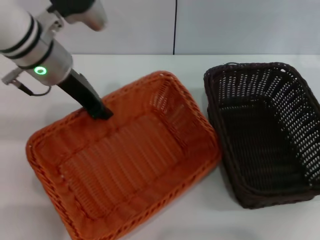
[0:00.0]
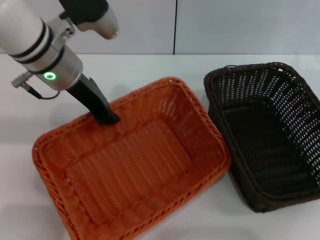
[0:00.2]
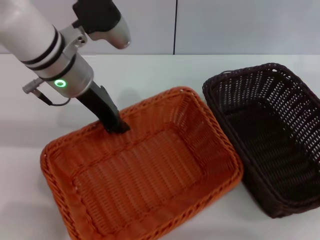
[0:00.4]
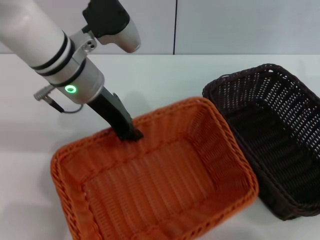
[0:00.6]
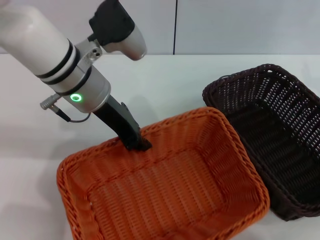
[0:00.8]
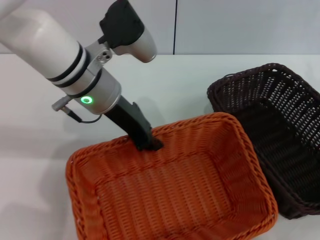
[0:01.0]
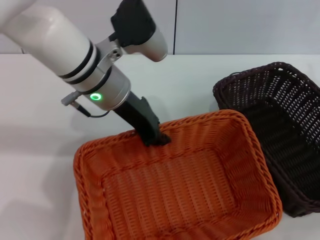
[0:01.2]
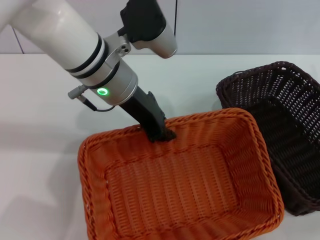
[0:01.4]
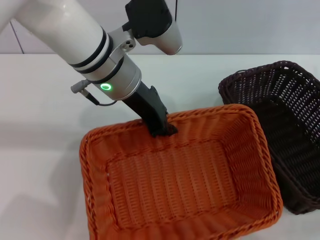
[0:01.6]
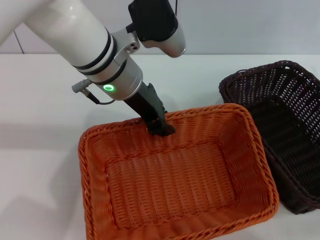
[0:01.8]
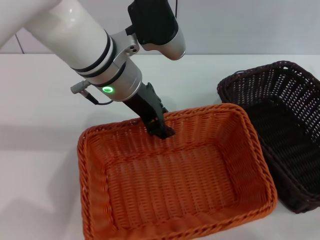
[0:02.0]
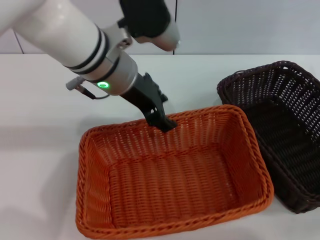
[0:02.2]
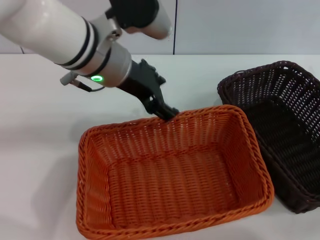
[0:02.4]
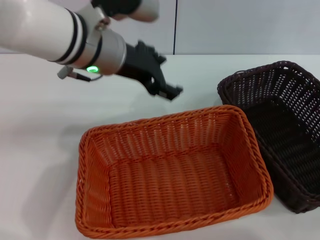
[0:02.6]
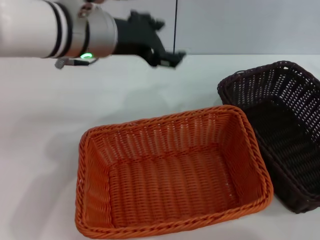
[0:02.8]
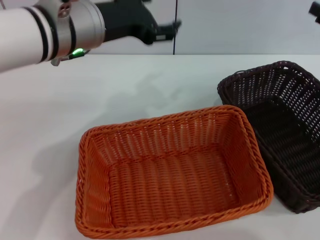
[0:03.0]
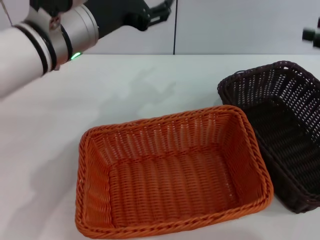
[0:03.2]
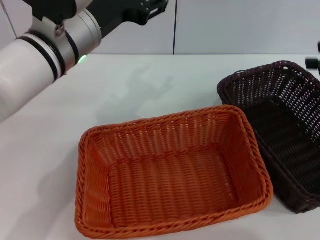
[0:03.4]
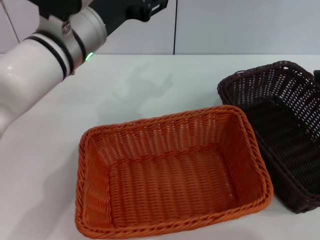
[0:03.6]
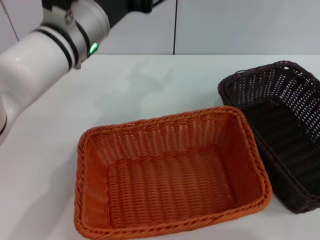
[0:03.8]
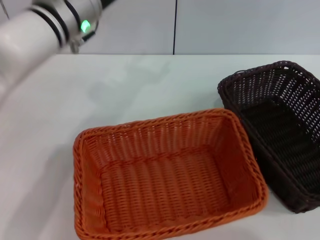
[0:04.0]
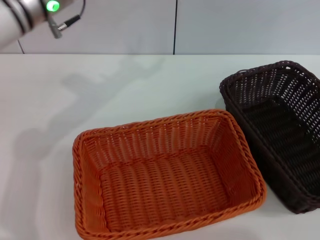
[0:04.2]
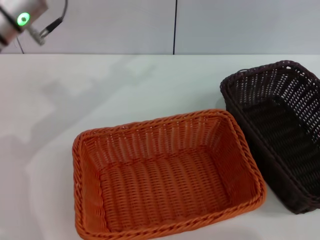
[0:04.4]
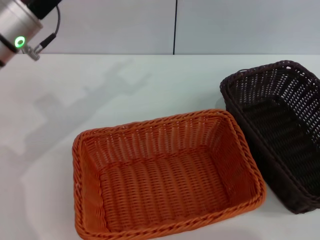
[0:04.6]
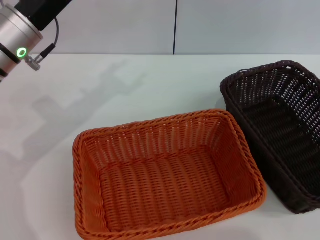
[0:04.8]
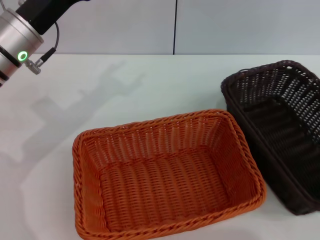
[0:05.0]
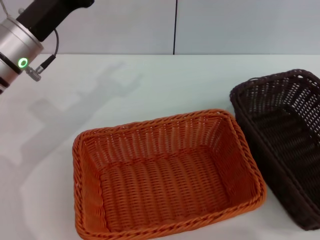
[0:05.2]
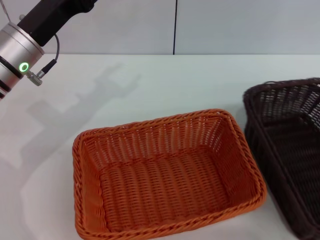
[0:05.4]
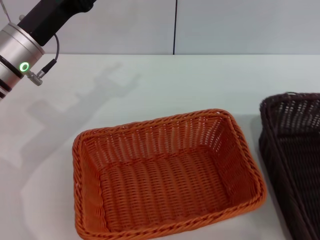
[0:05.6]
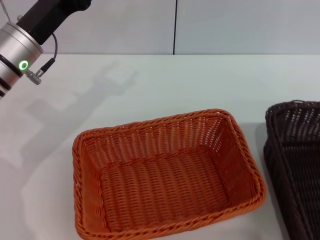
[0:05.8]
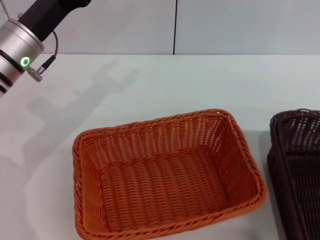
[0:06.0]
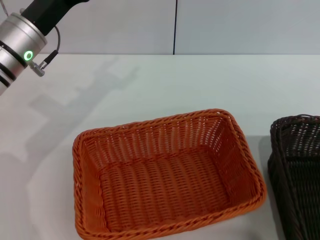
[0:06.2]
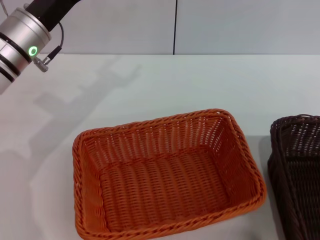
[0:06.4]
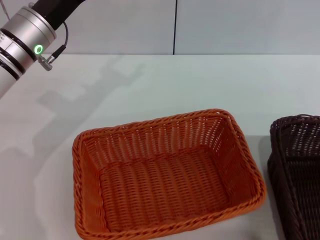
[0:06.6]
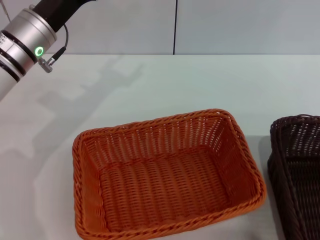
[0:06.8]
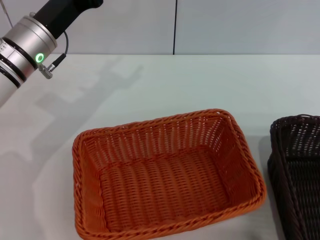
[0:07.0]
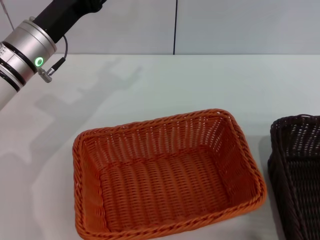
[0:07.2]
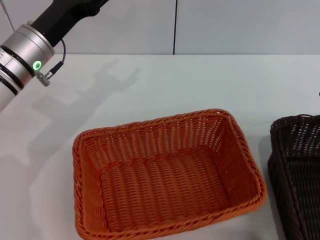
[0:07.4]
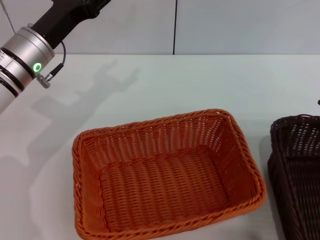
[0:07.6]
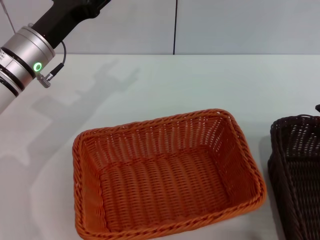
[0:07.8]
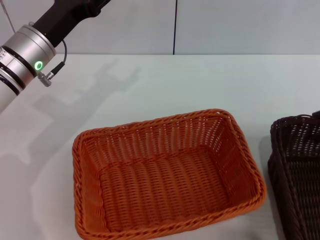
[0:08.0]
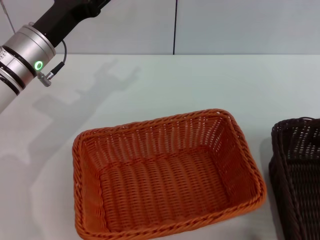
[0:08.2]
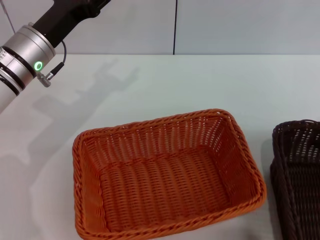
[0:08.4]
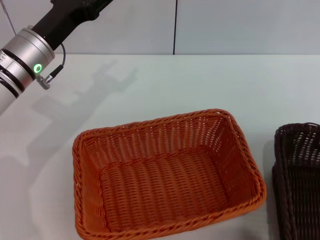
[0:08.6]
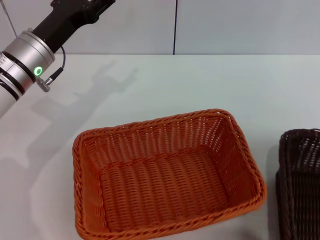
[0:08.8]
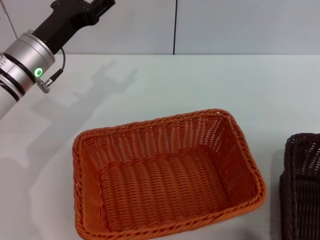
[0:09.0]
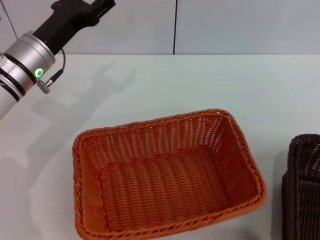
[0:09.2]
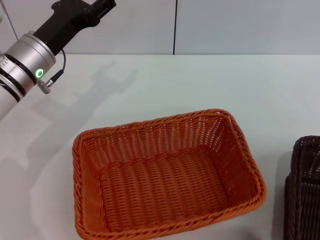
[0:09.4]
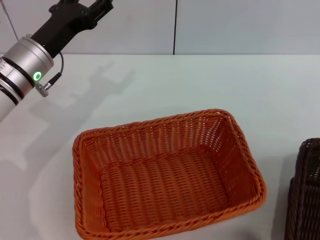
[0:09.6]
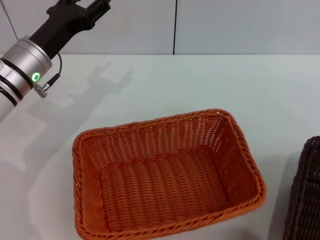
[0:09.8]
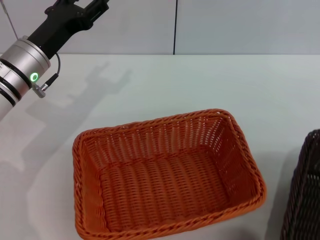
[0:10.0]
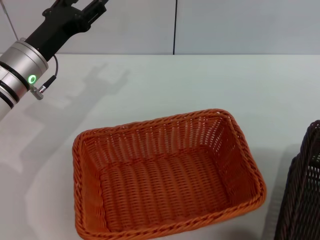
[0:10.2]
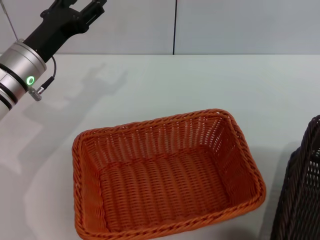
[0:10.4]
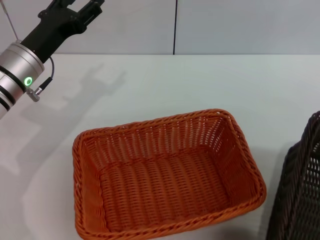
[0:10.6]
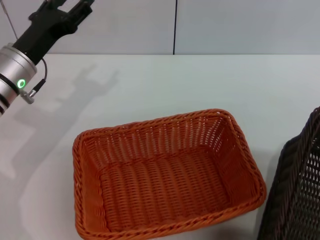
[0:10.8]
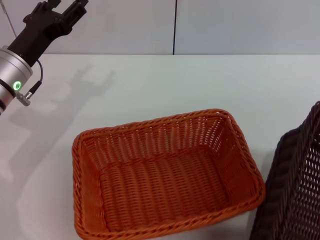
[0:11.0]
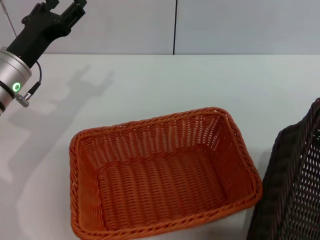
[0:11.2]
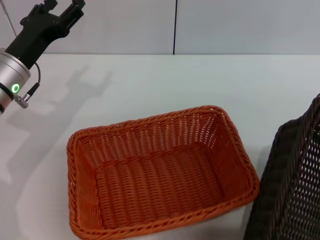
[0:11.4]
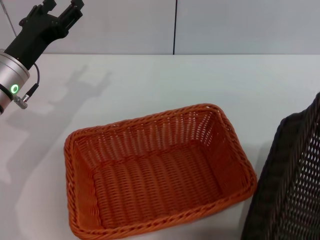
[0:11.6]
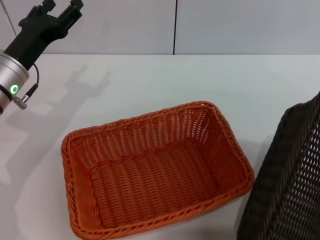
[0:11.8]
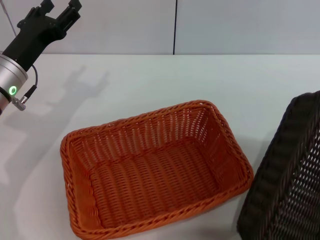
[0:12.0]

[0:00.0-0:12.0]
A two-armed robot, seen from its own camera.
Step, 0:00.0 to 0:02.0: Place the light basket in the center of view with the left gripper.
Step, 0:02.2 to 0:10.8: Pick up the dark basket with the right gripper.
0:00.0 to 0:01.6: The left gripper goes approximately 10 cm to the right. Meanwhile the right gripper changes place by some 5 cm.
0:01.6 to 0:03.0: The right gripper is displaced upward by roughly 5 cm, while the left gripper ends up roughly 5 cm from where it was, and opens up.
0:03.0 to 0:04.4: The right gripper travels backward by approximately 5 cm. The left gripper is displaced to the left by about 10 cm.
0:04.4 to 0:06.0: The left gripper shifts approximately 5 cm downward. The right gripper goes about 10 cm backward and to the left.
0:06.0 to 0:07.6: The right gripper goes about 10 cm forward.
0:07.6 to 0:09.0: The right gripper closes its fingers.
0:09.0 to 0:10.4: The right gripper shifts by roughly 5 cm.

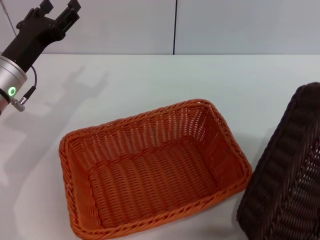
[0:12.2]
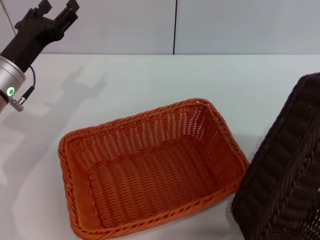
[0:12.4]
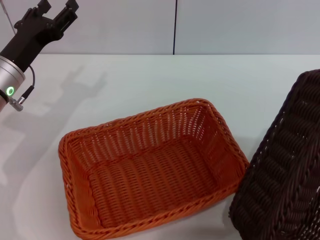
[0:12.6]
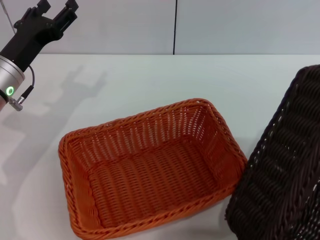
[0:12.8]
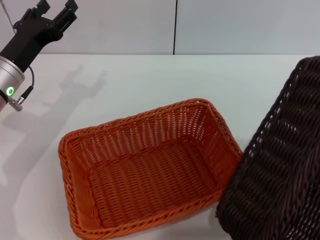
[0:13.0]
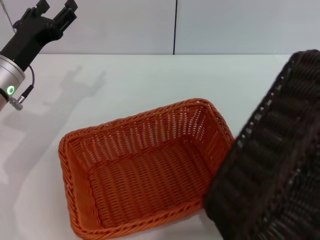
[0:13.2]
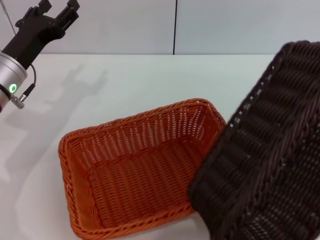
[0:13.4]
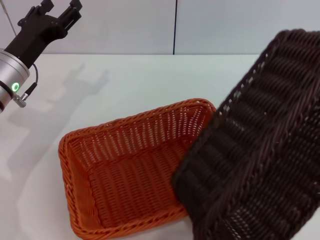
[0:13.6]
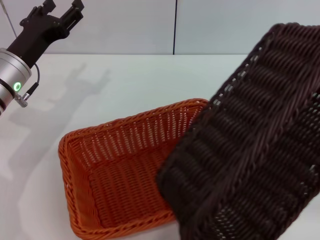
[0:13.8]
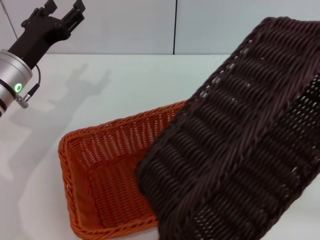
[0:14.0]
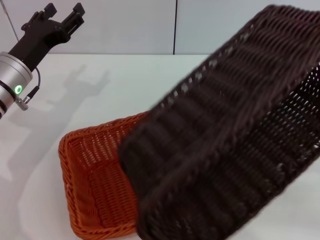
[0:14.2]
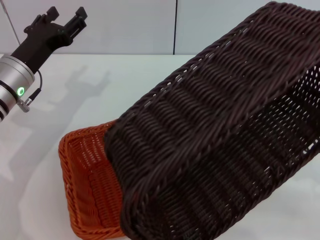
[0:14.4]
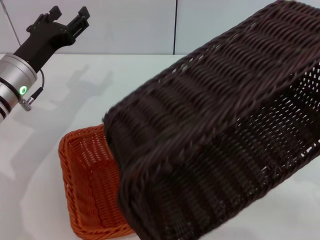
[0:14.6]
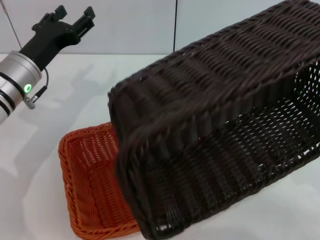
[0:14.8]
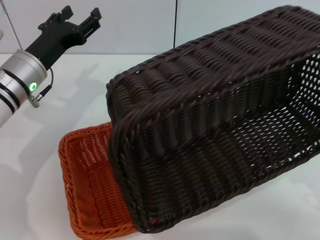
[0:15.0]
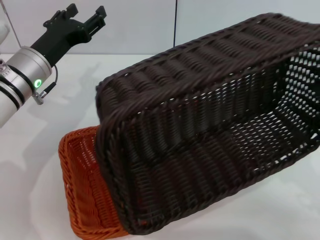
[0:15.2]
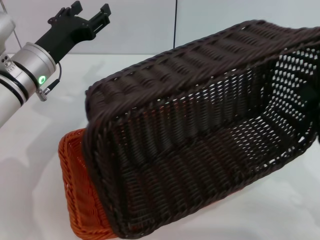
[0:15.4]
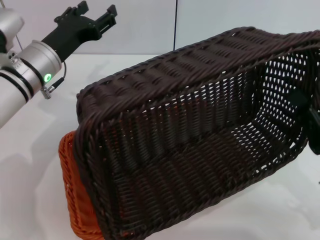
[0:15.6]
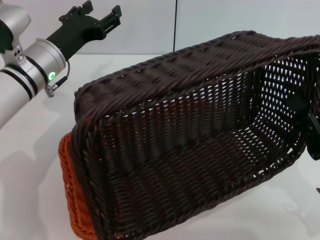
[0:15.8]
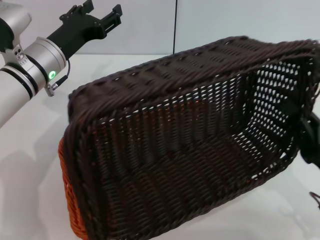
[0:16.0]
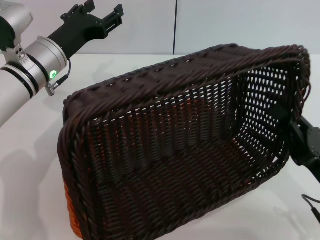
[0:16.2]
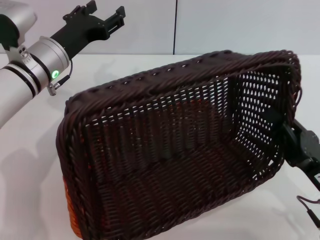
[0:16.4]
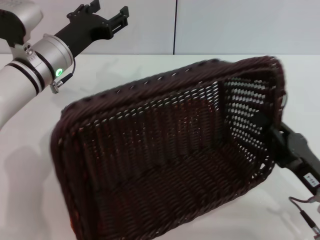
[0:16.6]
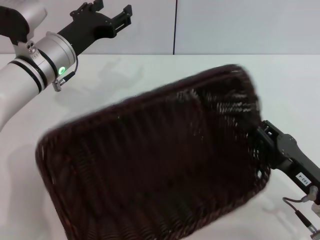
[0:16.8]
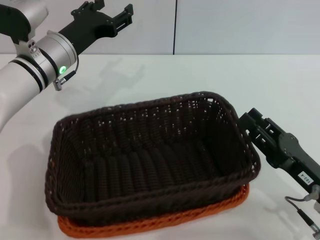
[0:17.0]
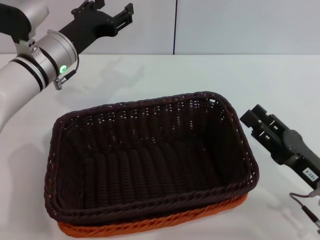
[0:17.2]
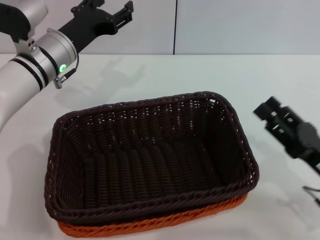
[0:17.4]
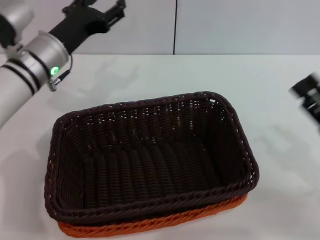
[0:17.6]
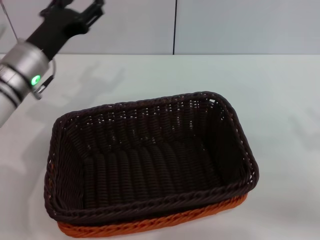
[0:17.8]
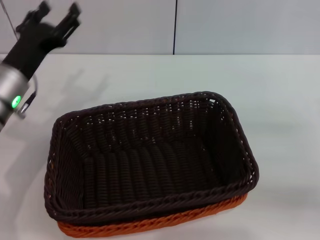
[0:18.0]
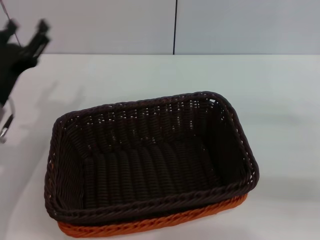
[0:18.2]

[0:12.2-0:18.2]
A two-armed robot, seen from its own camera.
Step, 0:12.2 to 0:17.0: Place the dark basket on the light basket with the right gripper.
0:12.2 to 0:13.8: The right gripper moves to the left, roughly 5 cm.
0:13.8 to 0:15.2: The right gripper is displaced to the left, downward and backward by about 15 cm.
0:15.2 to 0:16.6: The right gripper changes place by roughly 5 cm.
0:16.6 to 0:18.2: The right gripper shifts approximately 15 cm to the right, forward and upward, and opens up; the left gripper moves backward and to the left, roughly 10 cm.
